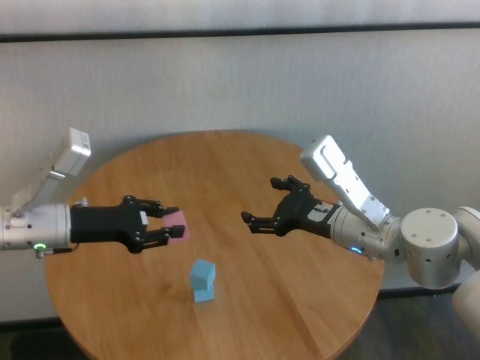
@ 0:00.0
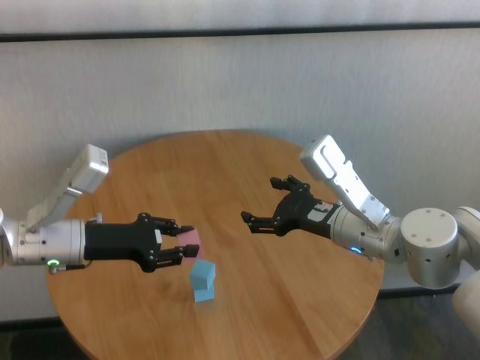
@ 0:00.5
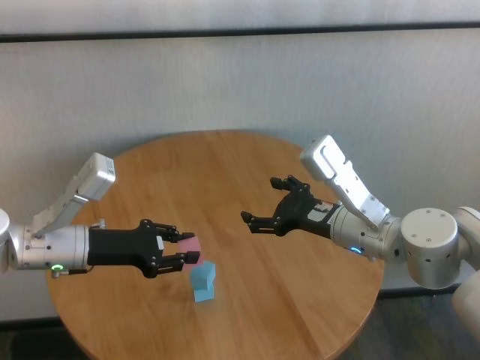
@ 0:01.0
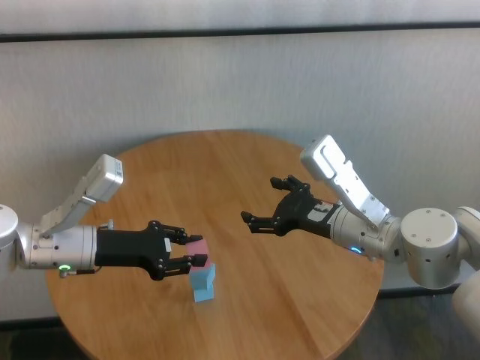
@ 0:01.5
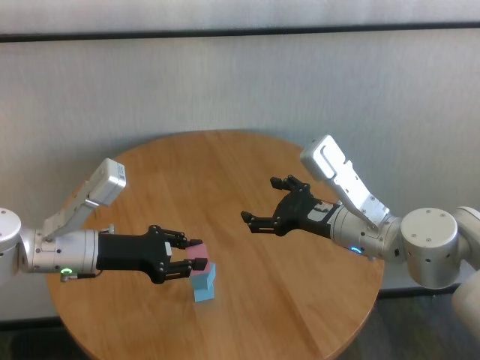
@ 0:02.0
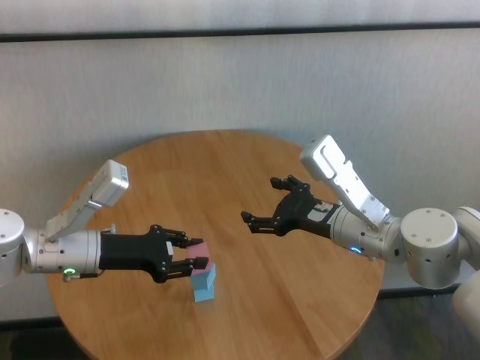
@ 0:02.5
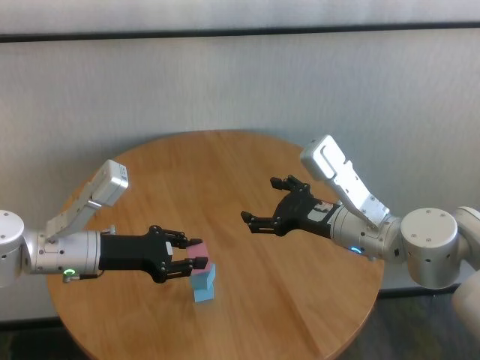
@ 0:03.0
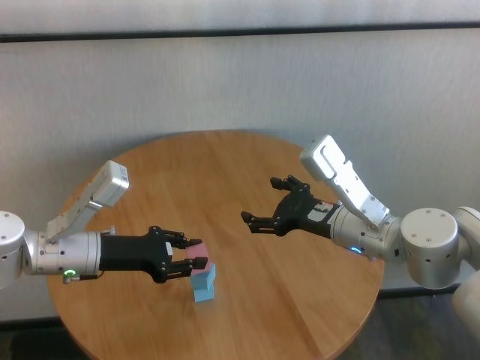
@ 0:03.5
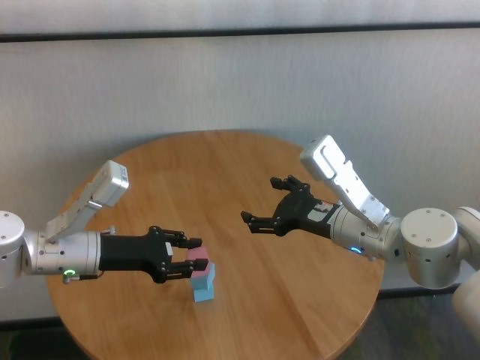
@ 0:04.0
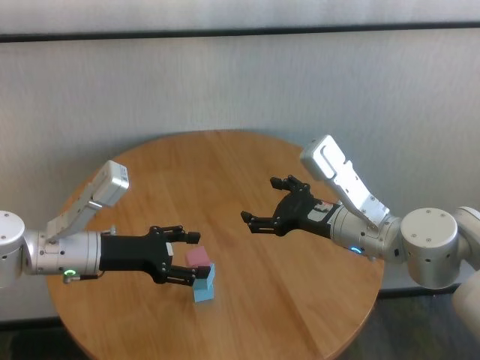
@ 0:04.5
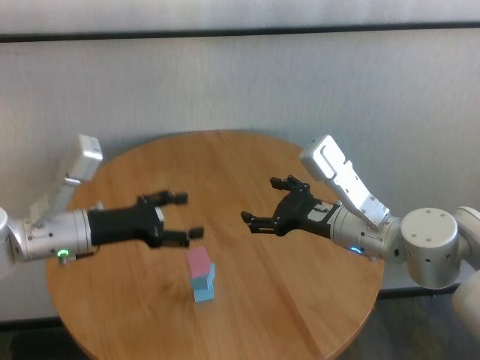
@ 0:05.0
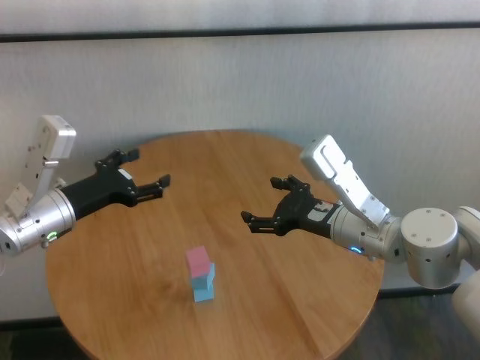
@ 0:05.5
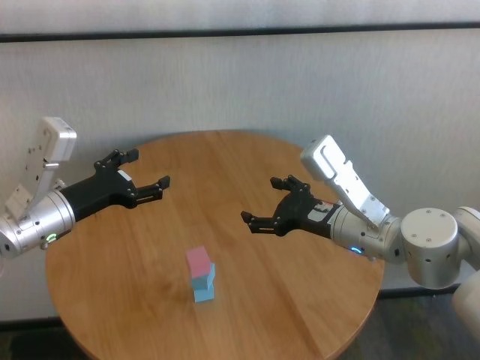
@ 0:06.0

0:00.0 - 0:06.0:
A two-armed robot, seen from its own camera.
Task of the whole recording: stack building blocks on the table.
Step, 0:00.0 - 0:04.0: Place the pink building block on the blue building blocks with left gripper.
